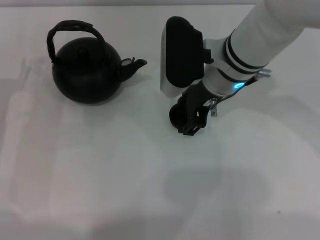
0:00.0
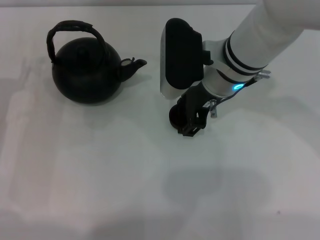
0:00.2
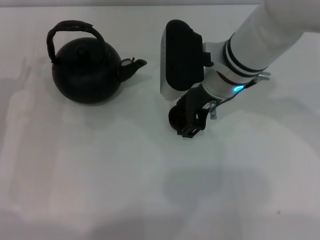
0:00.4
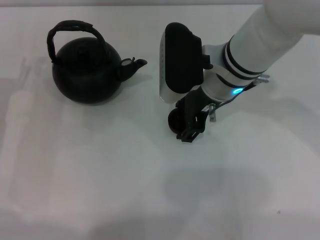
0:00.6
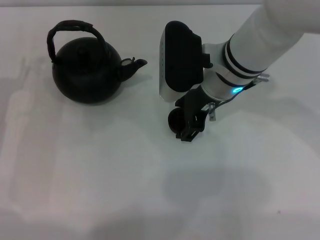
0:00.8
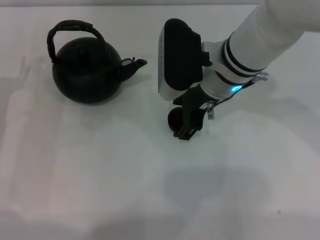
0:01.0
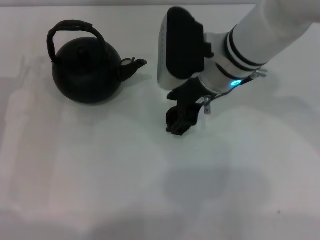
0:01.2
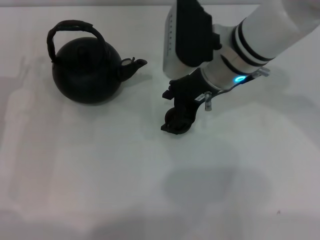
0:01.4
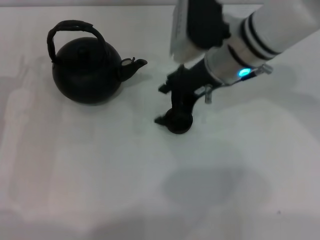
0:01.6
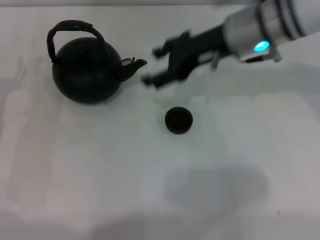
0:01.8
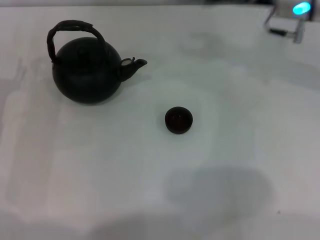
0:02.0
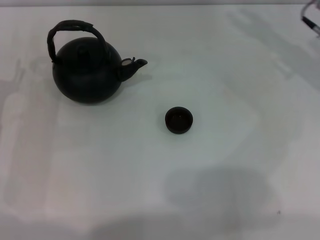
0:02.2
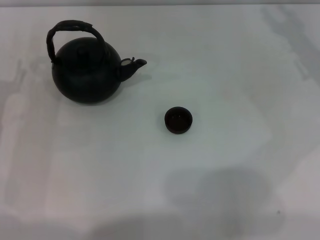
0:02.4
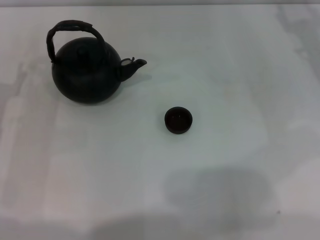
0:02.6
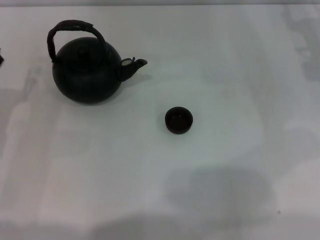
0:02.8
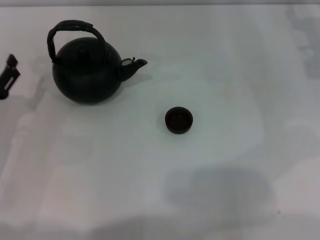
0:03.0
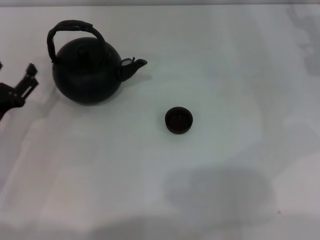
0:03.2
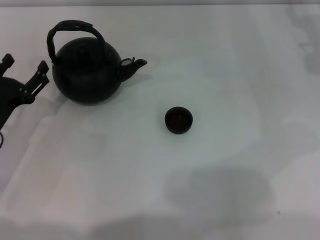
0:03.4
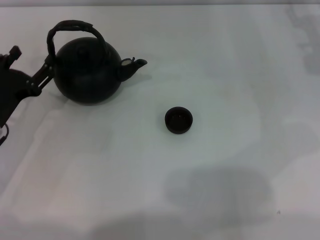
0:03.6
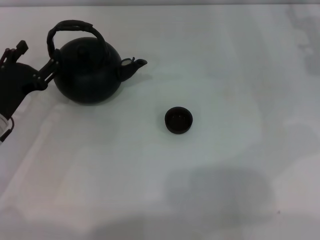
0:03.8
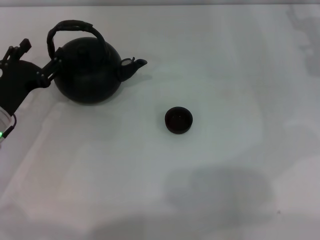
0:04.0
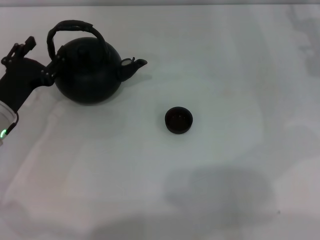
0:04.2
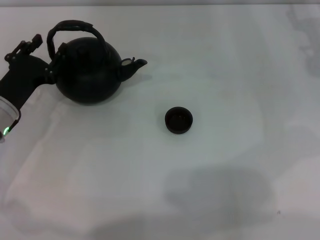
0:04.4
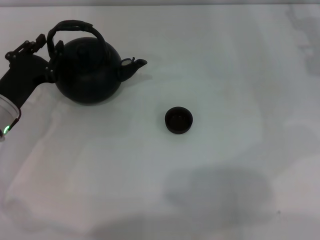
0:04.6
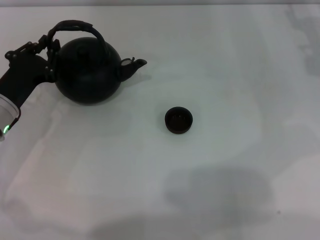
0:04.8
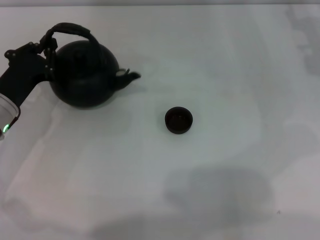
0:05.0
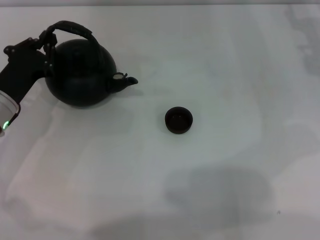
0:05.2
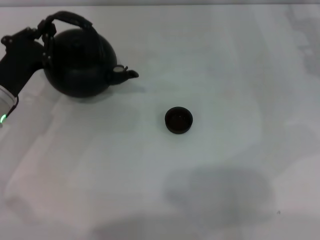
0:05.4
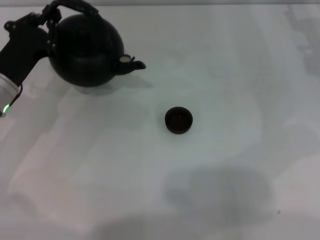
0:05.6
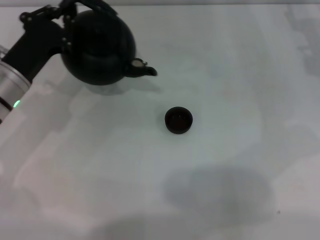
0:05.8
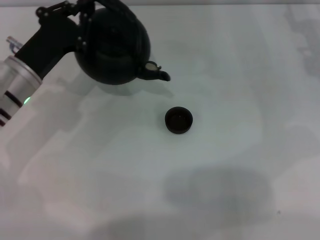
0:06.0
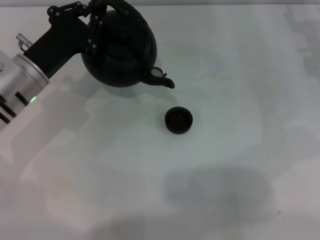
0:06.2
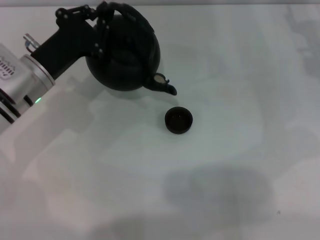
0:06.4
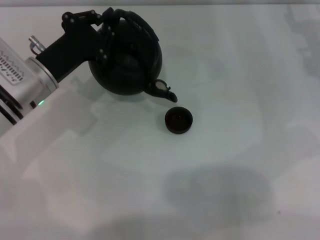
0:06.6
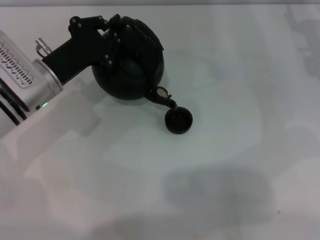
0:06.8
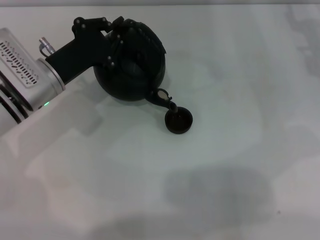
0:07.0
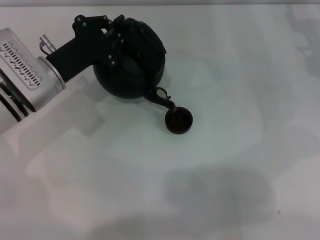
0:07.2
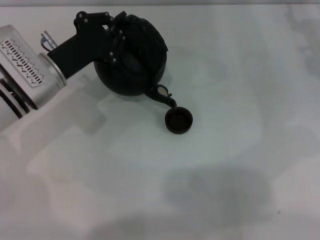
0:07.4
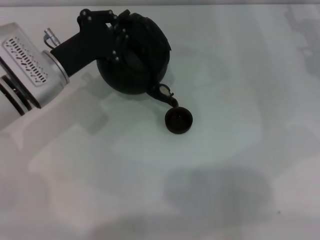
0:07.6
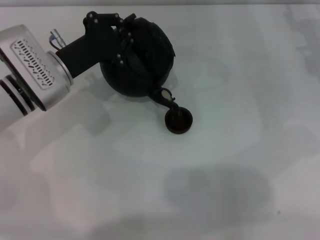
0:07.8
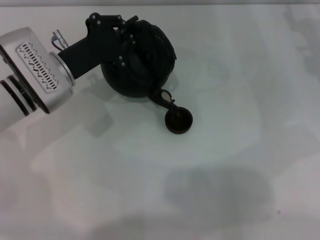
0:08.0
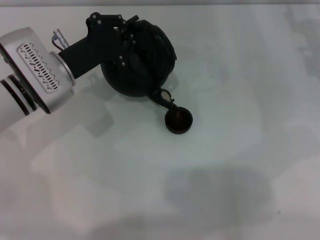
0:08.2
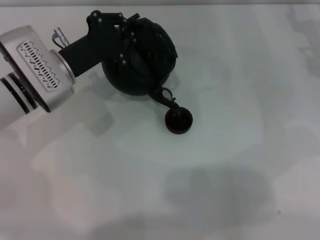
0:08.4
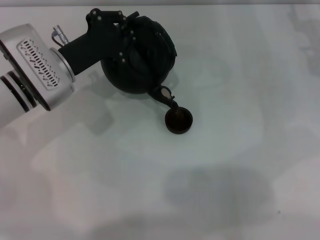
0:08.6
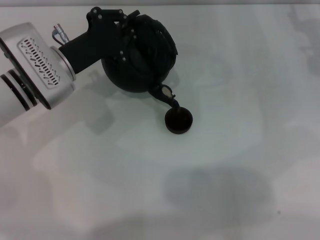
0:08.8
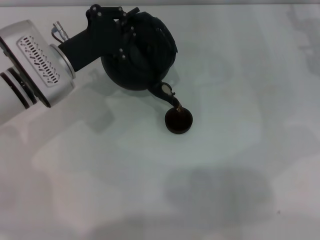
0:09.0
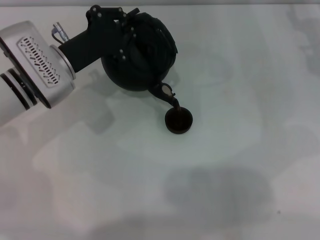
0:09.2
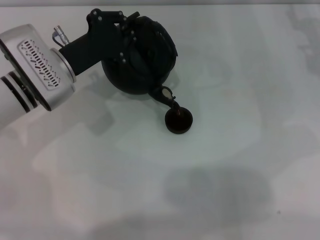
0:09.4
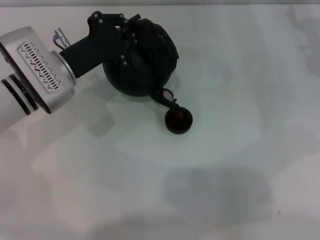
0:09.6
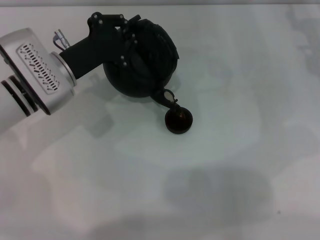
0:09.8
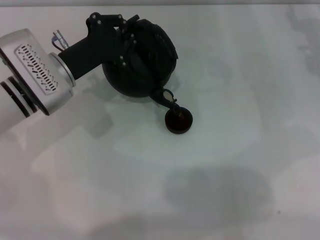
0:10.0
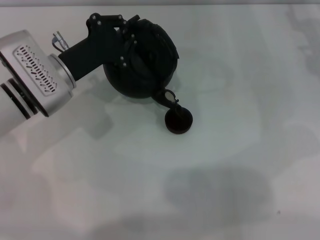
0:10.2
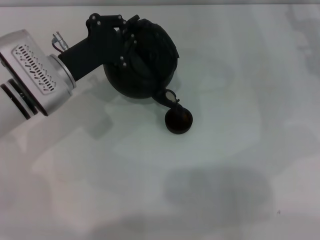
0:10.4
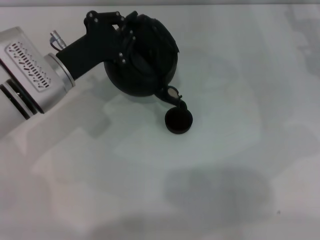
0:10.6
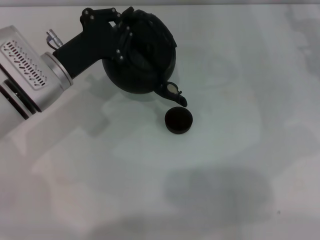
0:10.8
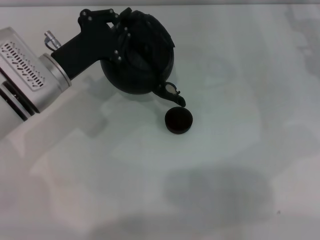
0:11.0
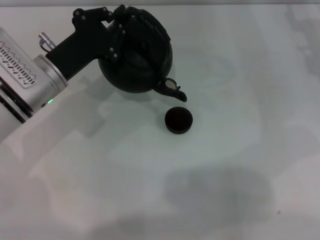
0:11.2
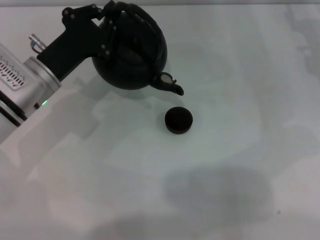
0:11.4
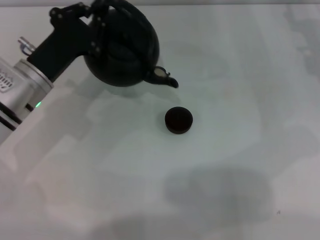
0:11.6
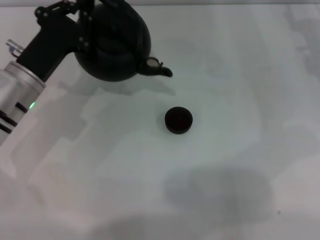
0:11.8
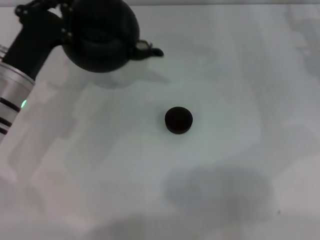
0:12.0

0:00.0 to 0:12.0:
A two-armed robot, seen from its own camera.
Task of the whole recording: Grasp the handle of the teapot with one hand and pour tea into the teacup.
Step, 0:01.8 to 0:06.0: Pick up the teapot with the left gripper.
Step, 0:06.2 to 0:10.8: Pour tea into the teacup with the left gripper.
0:00.0 to 0:01.6: The grippers make only small movements.
0:01.6 to 0:03.0: The right gripper shifts approximately 20 cm to the right.
0:03.0 to 0:04.4: The left gripper goes some 5 cm forward.
0:04.4 to 0:06.0: The left gripper moves roughly 5 cm, and closes its fingers.
0:07.6 to 0:10.4: The grippers make only small movements.

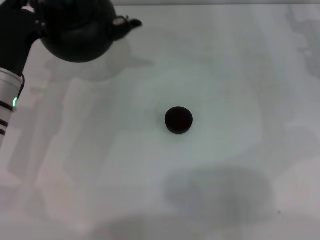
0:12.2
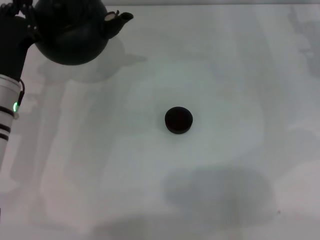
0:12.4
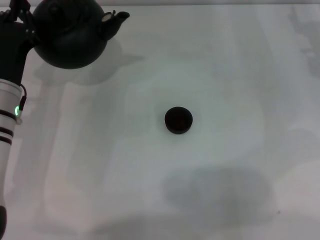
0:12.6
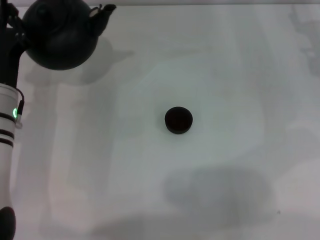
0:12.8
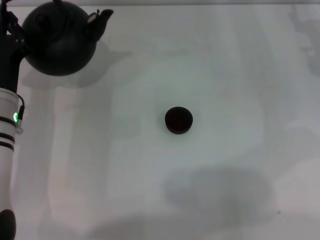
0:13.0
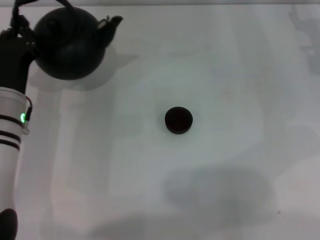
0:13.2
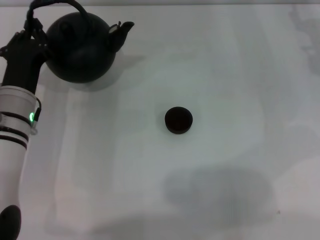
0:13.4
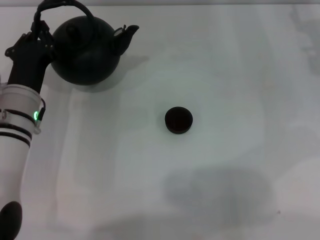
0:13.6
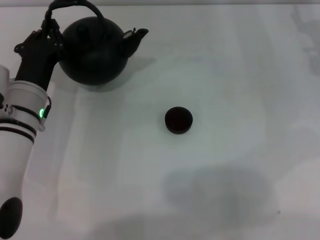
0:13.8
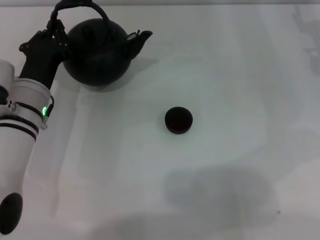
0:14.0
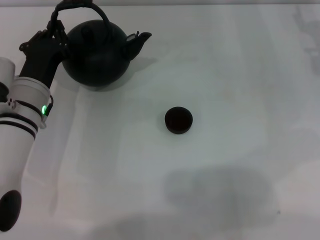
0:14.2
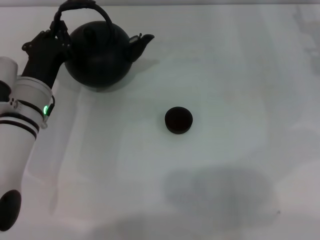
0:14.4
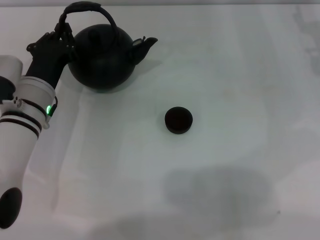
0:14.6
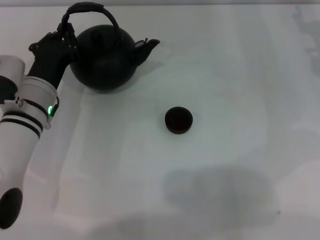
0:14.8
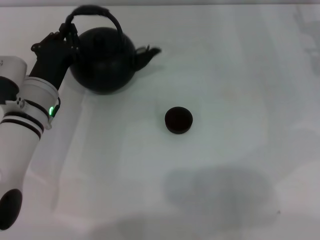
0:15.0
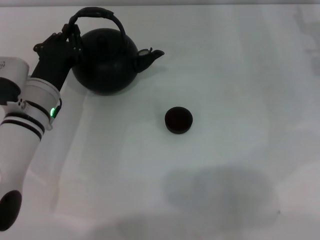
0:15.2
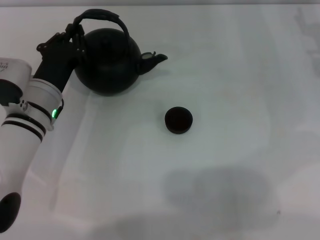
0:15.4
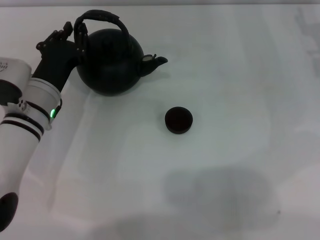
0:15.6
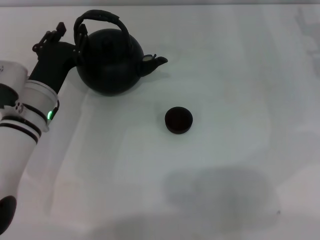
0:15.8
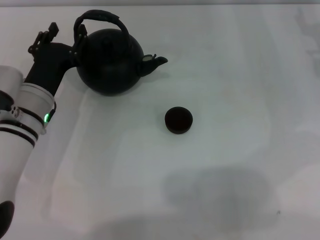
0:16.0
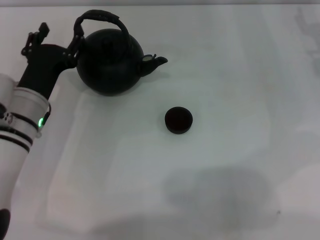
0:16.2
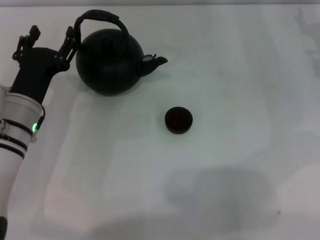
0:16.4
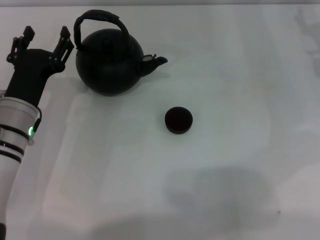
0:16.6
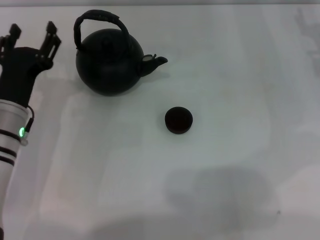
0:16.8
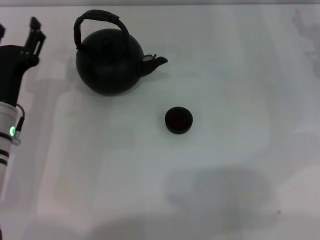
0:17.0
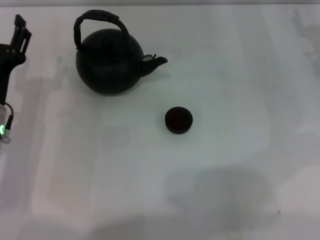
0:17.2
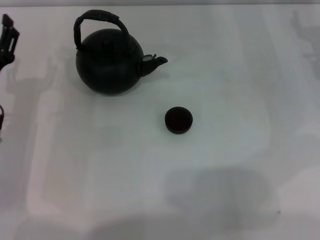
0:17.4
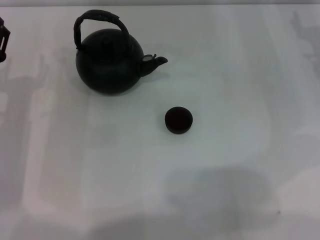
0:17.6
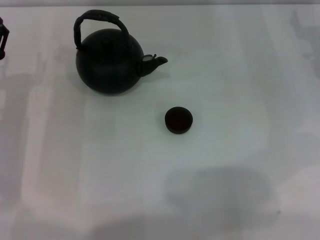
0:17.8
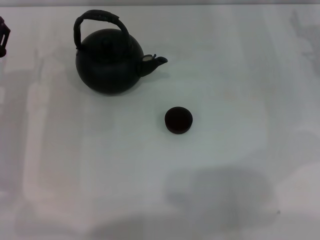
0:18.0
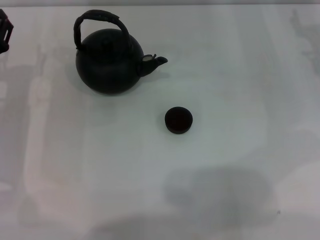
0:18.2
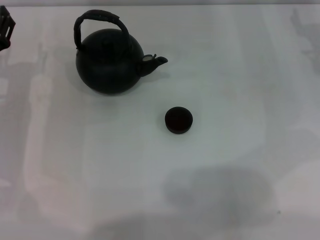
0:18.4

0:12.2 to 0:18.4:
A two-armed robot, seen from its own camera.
Task of the whole recording: Grasp the handle of the teapot with one hand and pour tea into the teacup.
Step, 0:12.2 to 0:16.2: Put down the teapot with the left gripper.
0:13.8 to 0:15.4: The grippers make only small movements.
0:15.4 to 0:16.8: The left gripper moves some 5 cm, and opens.
0:16.8 to 0:18.4: The left gripper heads to the left, covering some 5 cm.

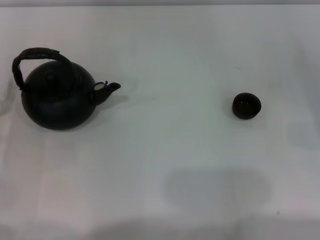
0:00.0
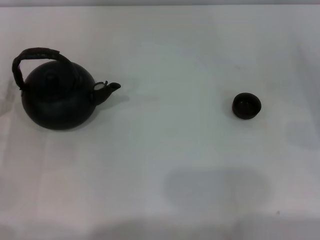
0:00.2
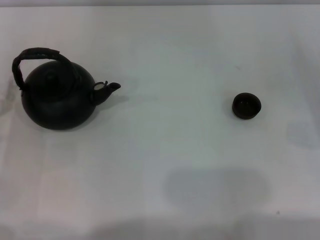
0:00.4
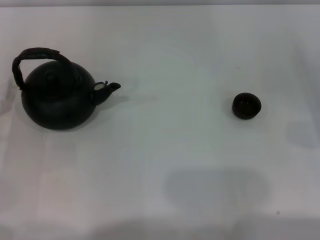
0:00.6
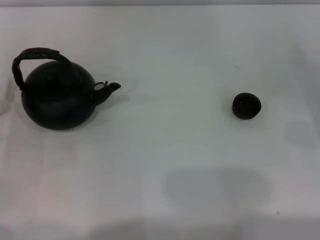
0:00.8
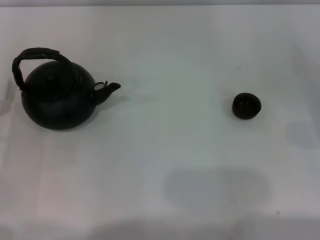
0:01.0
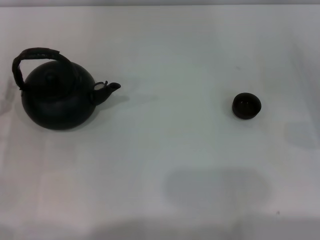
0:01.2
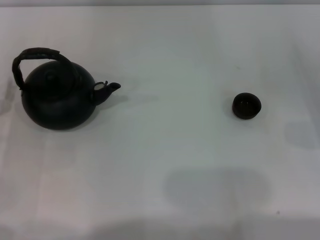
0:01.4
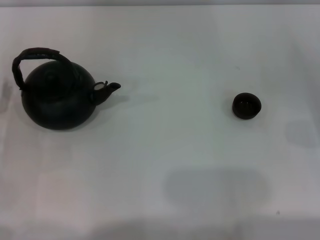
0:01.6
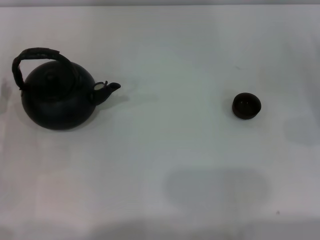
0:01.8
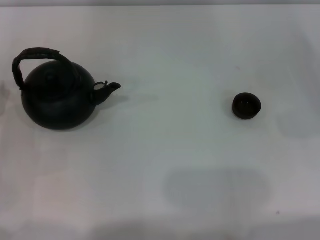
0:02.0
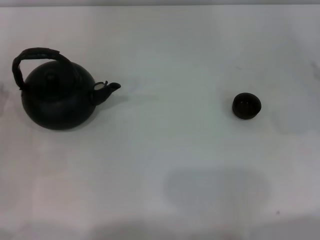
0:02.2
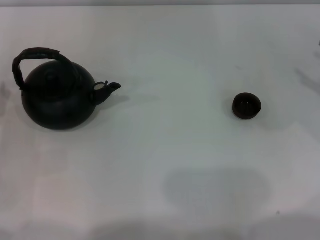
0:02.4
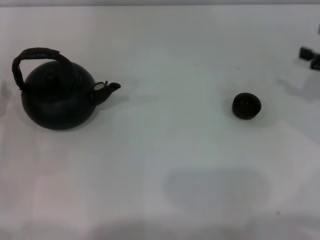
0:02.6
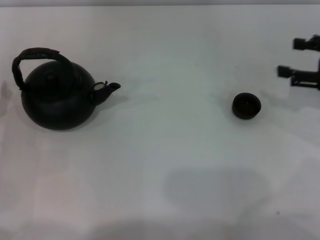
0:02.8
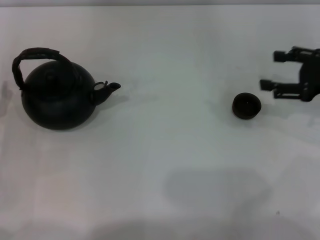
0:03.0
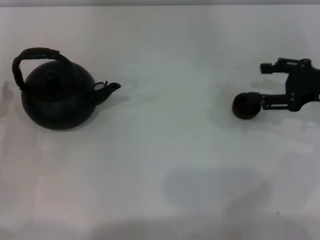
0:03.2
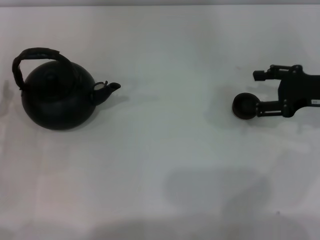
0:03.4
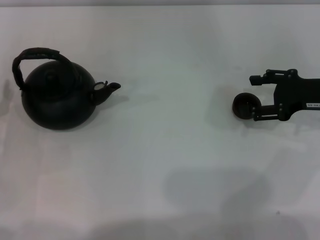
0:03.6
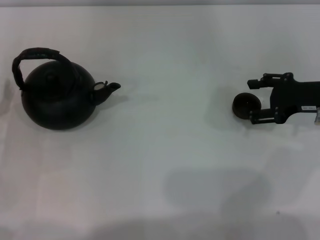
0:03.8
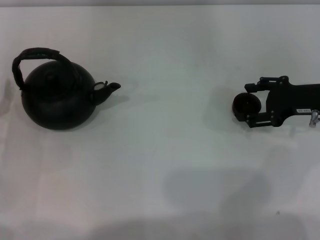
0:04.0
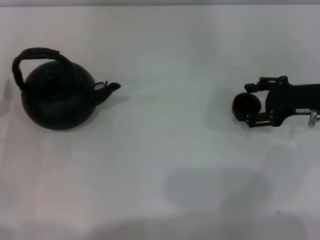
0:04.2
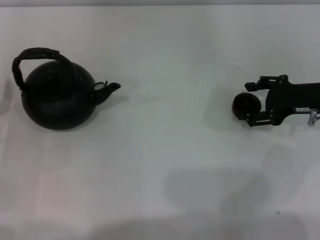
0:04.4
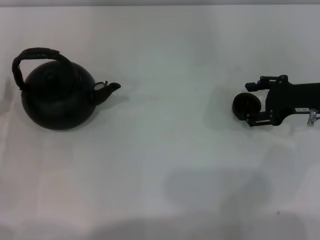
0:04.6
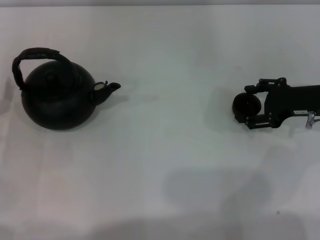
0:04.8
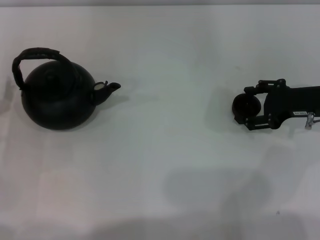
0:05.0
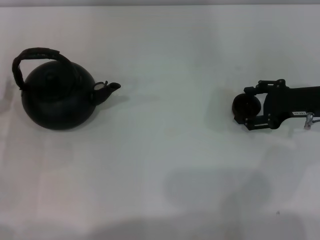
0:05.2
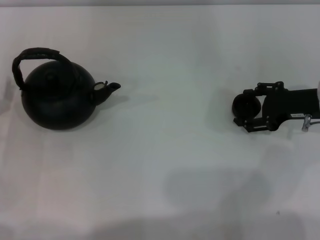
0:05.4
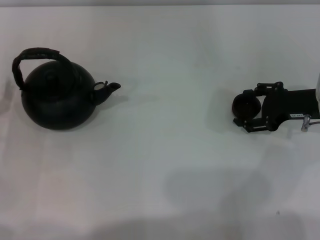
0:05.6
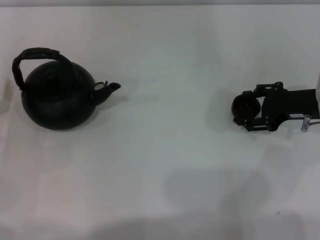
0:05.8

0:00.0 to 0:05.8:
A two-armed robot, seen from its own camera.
Task of the whole recording: Grasp the handle of the teapot with one hand and pour tea into the teacup.
0:00.0 to 0:01.4: Both grippers stay about where they are.
0:01.4 to 0:02.8: The right gripper goes some 10 cm upward and forward.
0:02.8 to 0:04.4: The right gripper is displaced to the left by about 5 cm.
0:04.4 to 0:05.8: The grippers move only a little.
